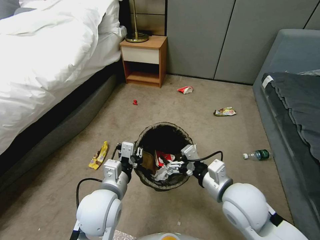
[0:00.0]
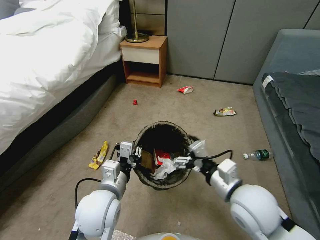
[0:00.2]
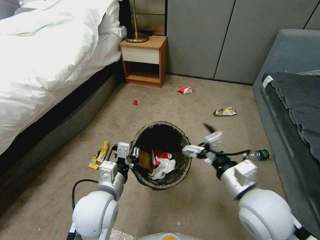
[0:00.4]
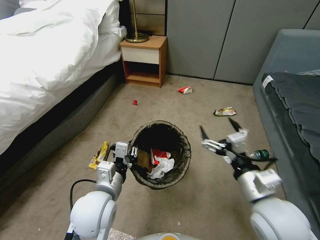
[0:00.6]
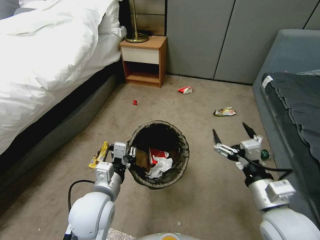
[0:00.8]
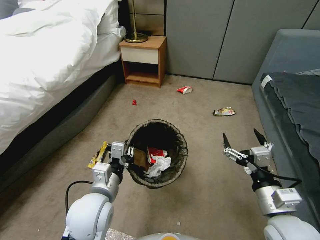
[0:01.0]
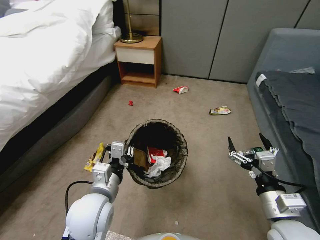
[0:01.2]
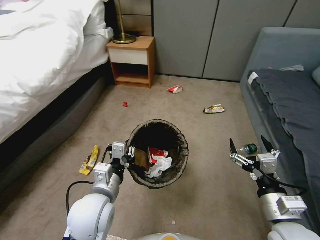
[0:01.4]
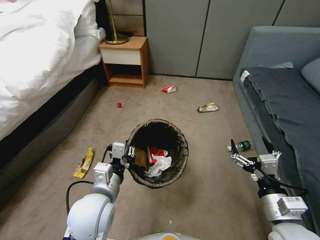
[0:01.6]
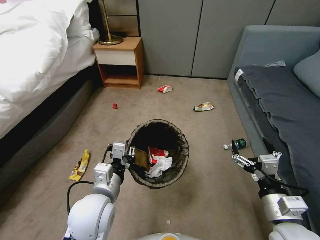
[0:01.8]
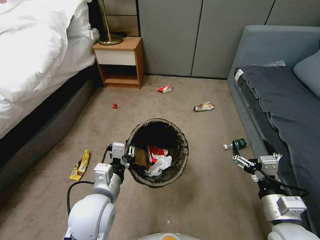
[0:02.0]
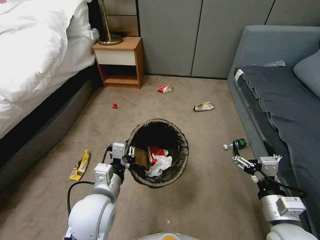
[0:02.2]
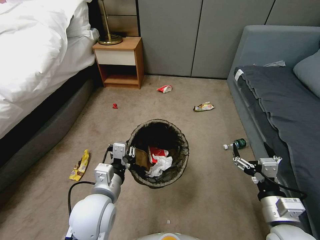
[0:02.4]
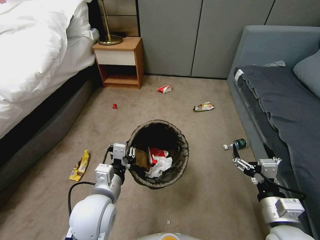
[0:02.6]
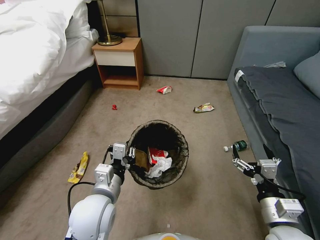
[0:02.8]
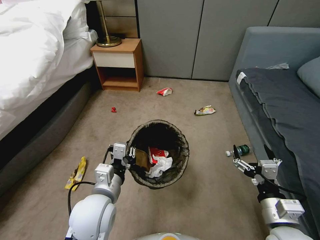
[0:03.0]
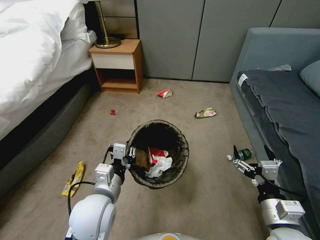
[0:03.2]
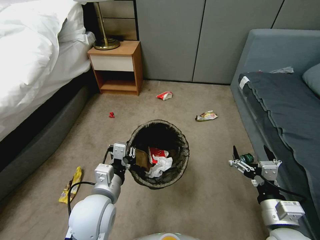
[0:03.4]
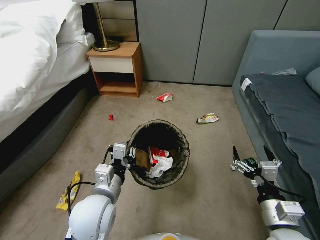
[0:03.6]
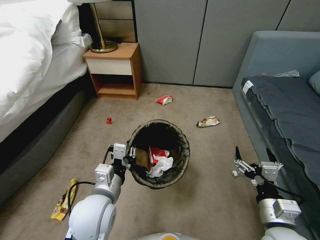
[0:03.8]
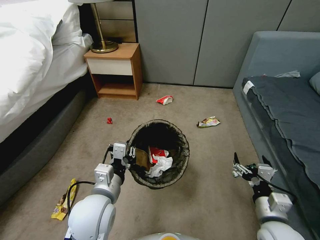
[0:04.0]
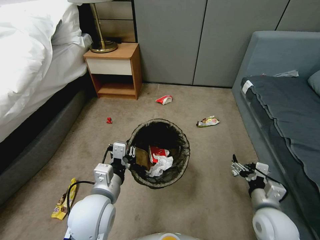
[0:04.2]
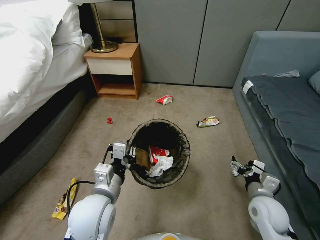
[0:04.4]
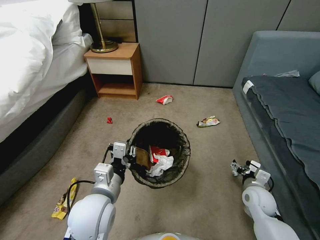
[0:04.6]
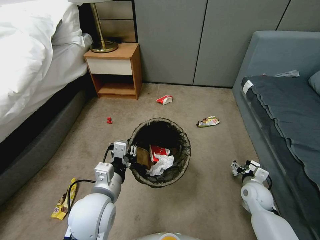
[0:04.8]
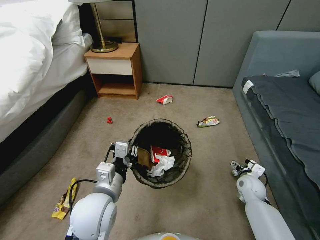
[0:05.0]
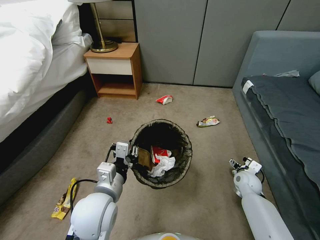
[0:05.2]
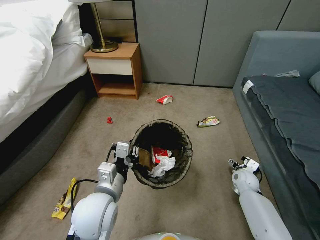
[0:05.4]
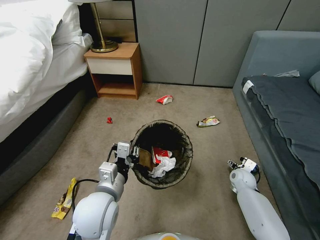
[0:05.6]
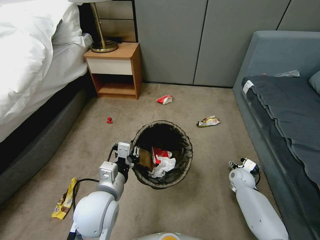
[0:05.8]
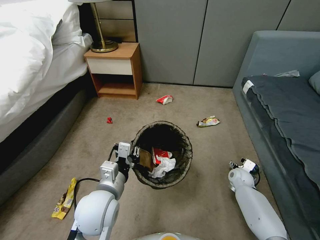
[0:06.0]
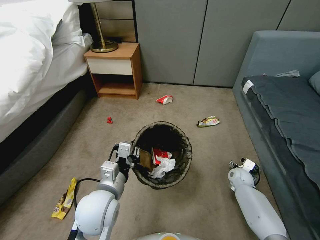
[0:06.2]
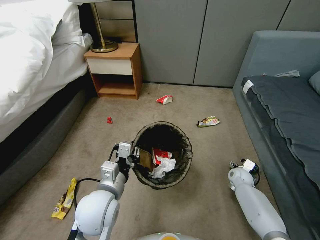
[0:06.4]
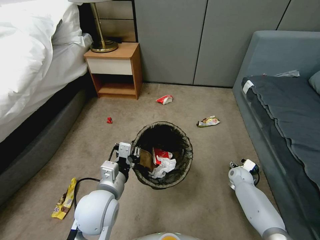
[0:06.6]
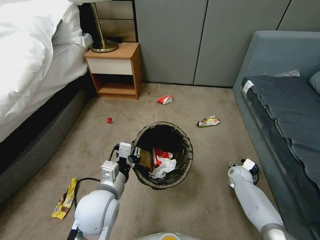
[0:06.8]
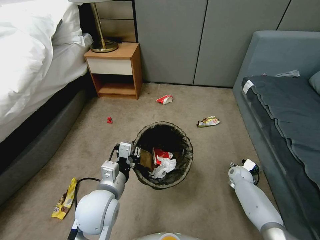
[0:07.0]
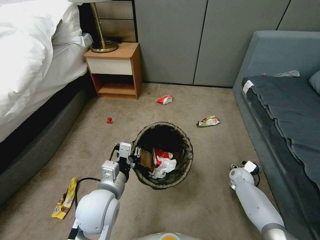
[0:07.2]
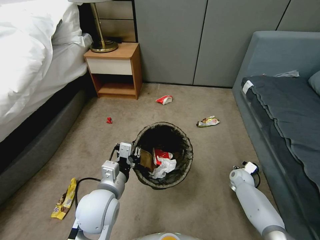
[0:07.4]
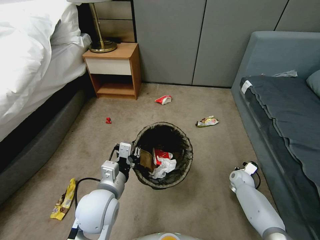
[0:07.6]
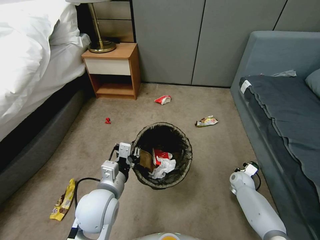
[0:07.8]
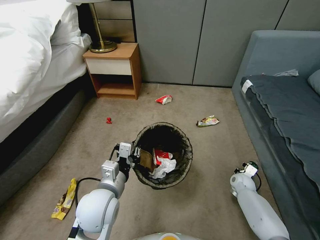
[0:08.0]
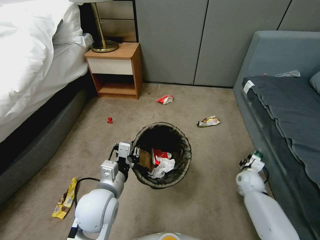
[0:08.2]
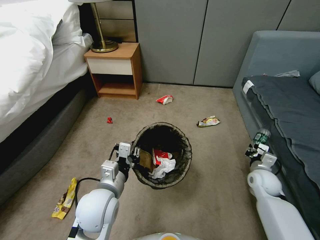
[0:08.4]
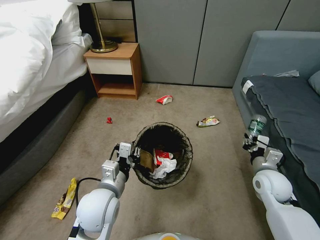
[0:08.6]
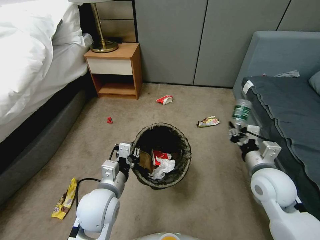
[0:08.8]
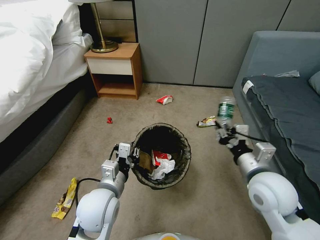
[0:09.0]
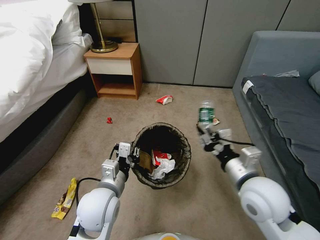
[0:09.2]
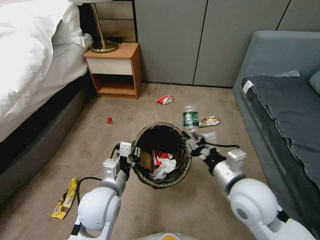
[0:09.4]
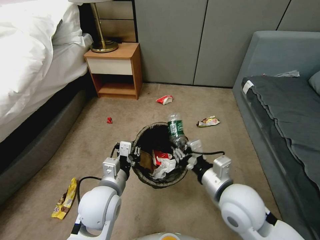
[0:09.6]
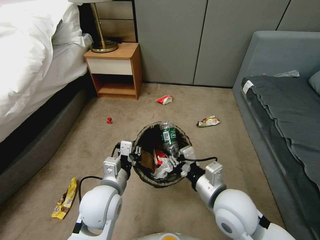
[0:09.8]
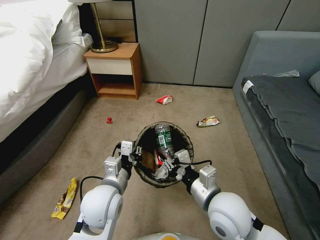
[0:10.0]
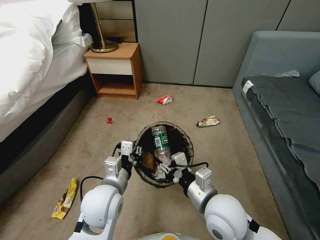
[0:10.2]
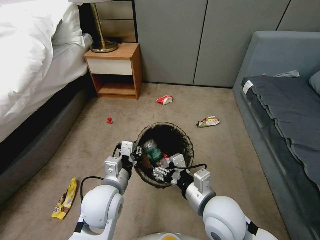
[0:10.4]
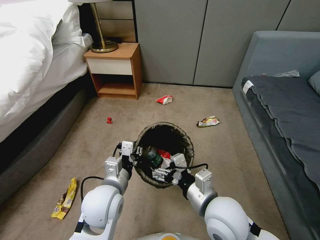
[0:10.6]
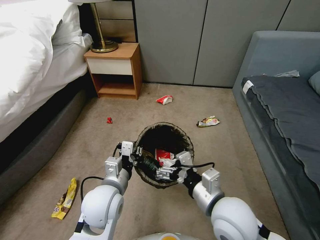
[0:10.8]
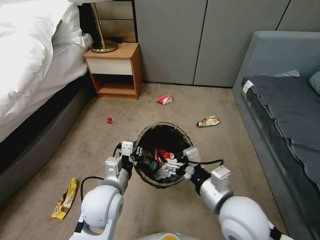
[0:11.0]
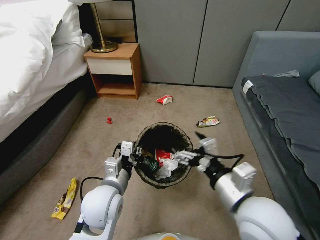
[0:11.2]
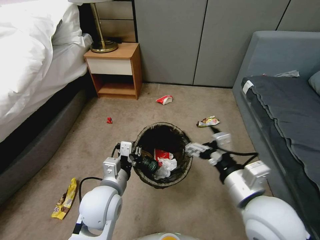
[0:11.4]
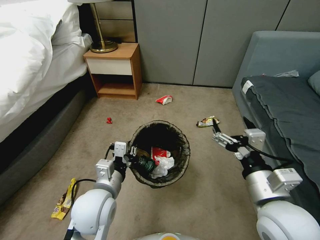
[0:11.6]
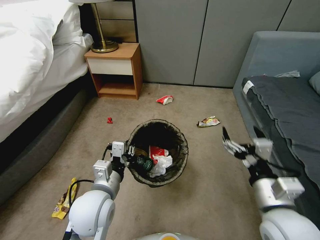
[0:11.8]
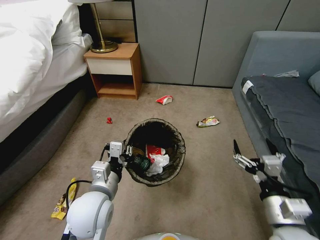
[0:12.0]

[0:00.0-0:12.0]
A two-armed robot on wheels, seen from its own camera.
Task of the whole recording: Pick up the trash bin, then pick up the garbage from the floor and place it into the trash bin.
0:00.0 to 0:01.6: The right gripper heads to the right and backward, covering some 15 cm.
0:01.6 to 0:03.0: The grippers move only a little.
0:03.0 to 0:04.4: The right gripper shifts some 10 cm forward and downward.
0:04.4 to 0:06.0: The right gripper is displaced forward and downward by some 20 cm.
0:06.0 to 0:07.6: The right gripper closes.
0:07.6 to 0:09.0: The right gripper goes roughly 35 cm upward and backward.
0:09.0 to 0:10.4: The right gripper heads to the left, covering approximately 10 cm, and opens up.
0:10.4 to 0:12.0: The right gripper goes about 15 cm to the right.

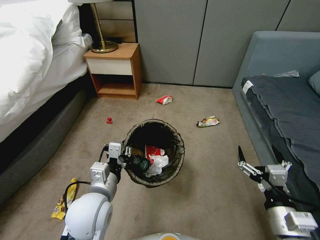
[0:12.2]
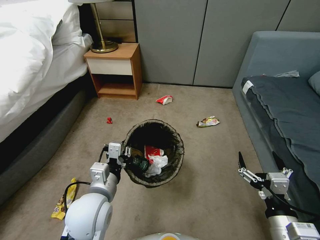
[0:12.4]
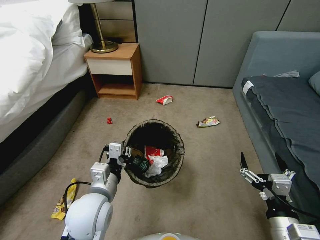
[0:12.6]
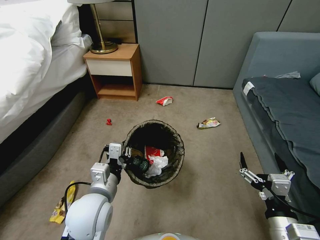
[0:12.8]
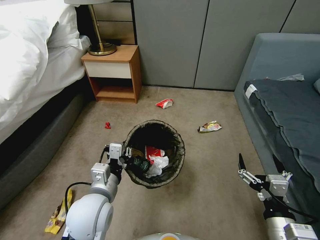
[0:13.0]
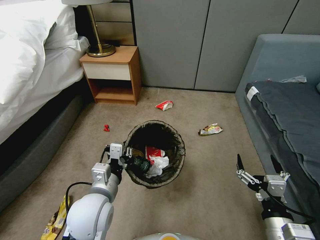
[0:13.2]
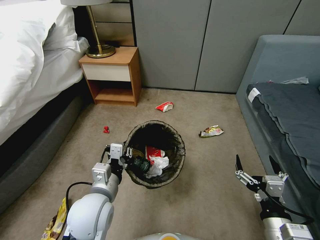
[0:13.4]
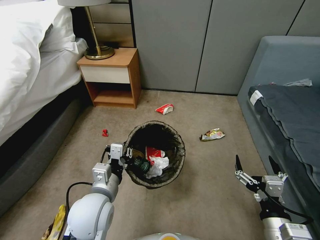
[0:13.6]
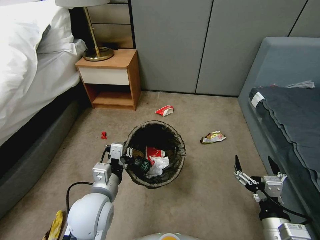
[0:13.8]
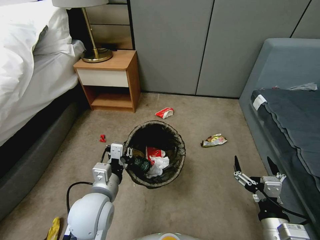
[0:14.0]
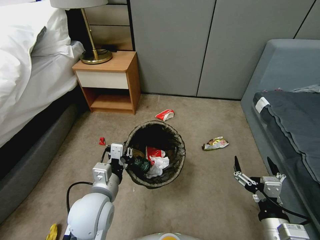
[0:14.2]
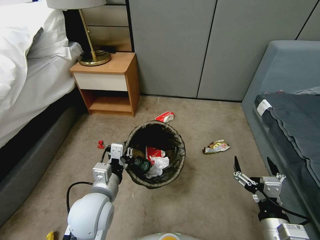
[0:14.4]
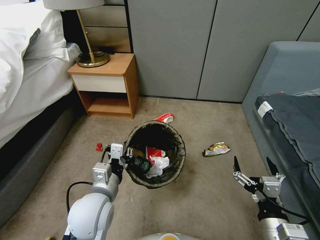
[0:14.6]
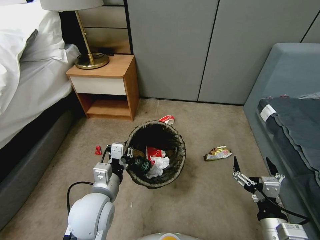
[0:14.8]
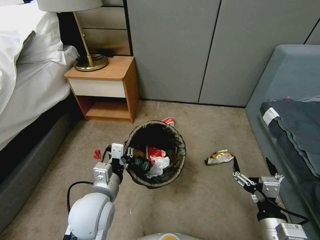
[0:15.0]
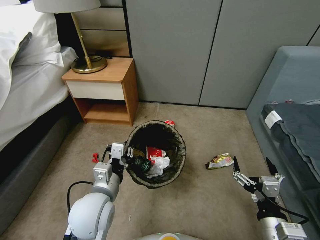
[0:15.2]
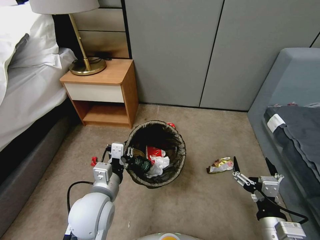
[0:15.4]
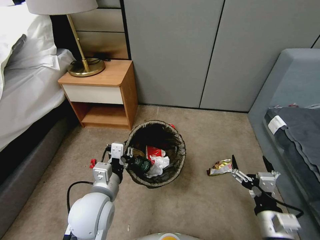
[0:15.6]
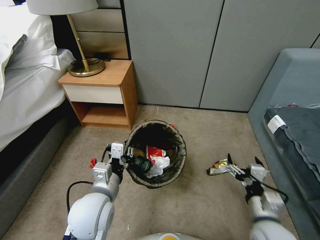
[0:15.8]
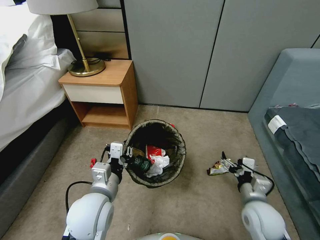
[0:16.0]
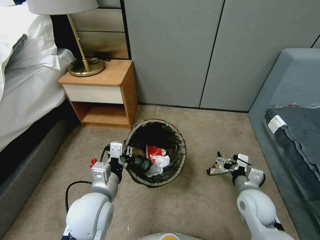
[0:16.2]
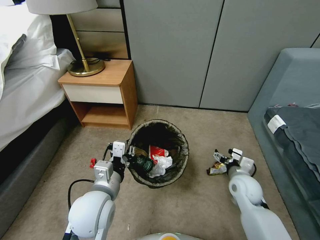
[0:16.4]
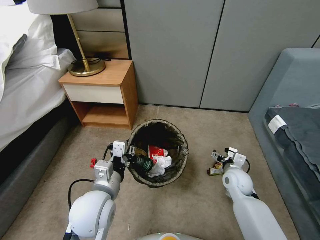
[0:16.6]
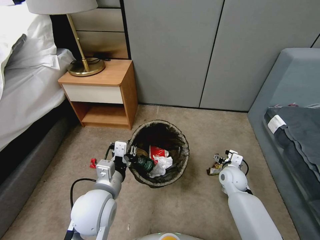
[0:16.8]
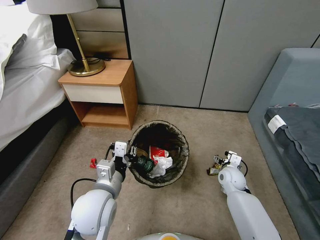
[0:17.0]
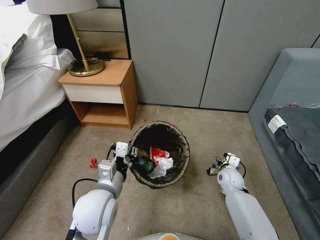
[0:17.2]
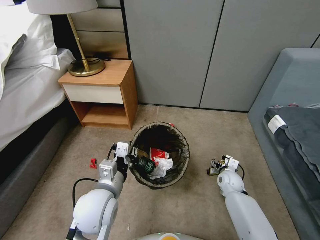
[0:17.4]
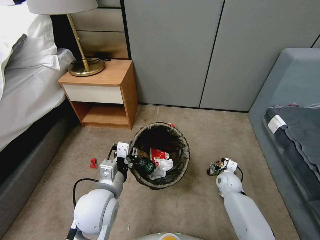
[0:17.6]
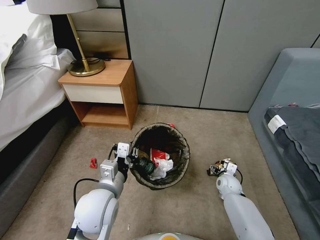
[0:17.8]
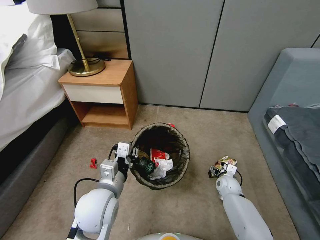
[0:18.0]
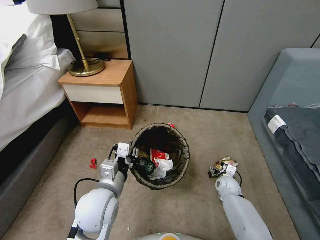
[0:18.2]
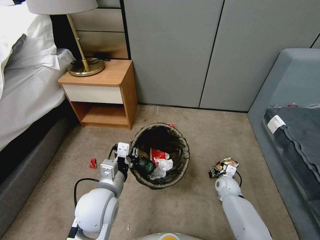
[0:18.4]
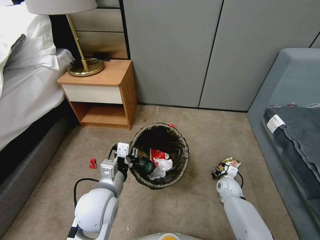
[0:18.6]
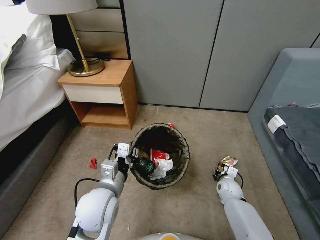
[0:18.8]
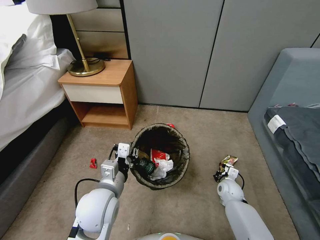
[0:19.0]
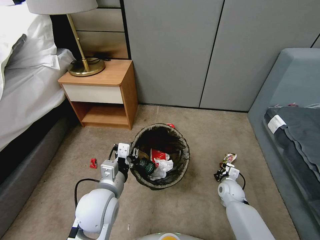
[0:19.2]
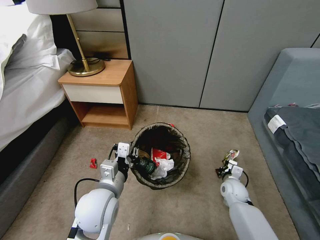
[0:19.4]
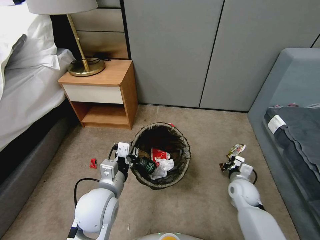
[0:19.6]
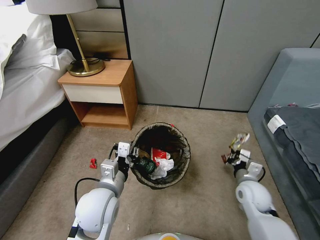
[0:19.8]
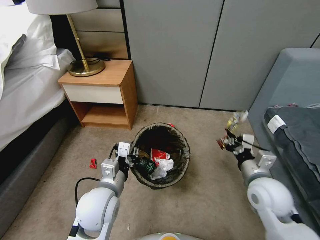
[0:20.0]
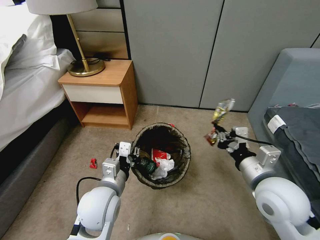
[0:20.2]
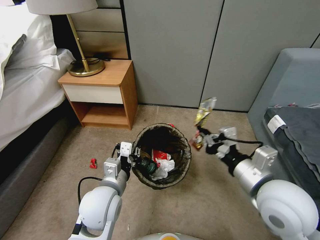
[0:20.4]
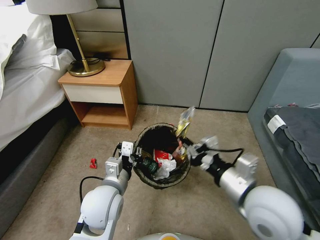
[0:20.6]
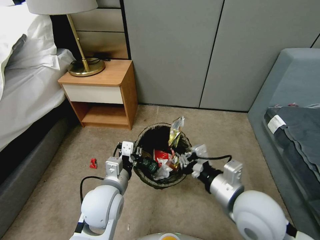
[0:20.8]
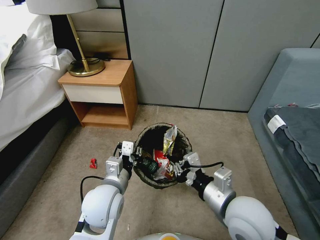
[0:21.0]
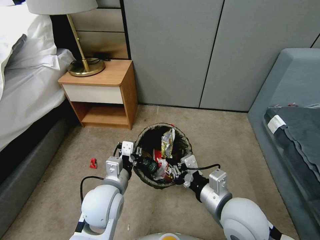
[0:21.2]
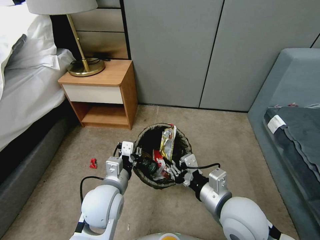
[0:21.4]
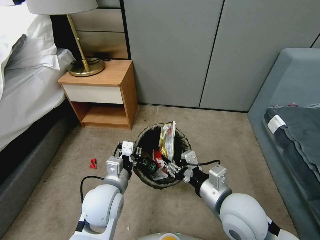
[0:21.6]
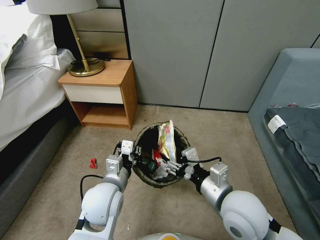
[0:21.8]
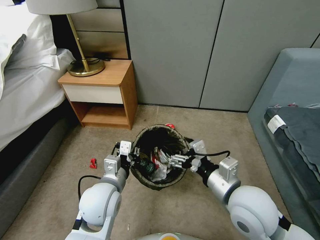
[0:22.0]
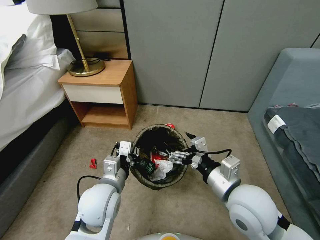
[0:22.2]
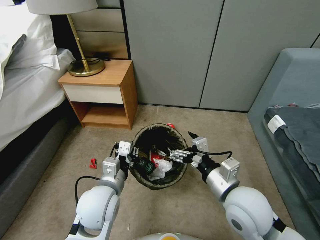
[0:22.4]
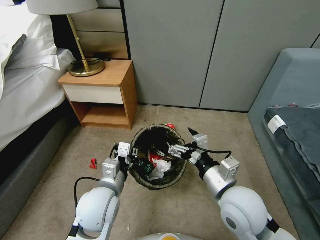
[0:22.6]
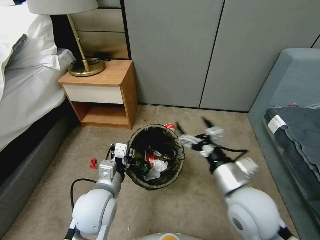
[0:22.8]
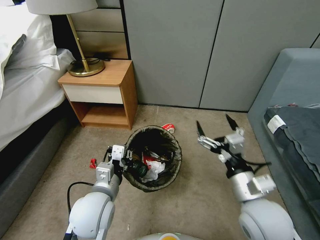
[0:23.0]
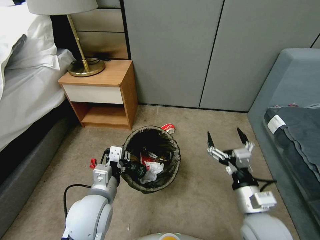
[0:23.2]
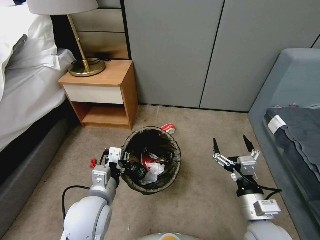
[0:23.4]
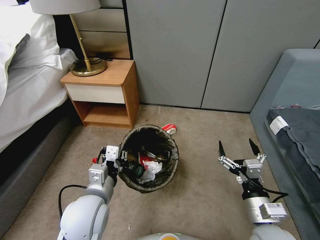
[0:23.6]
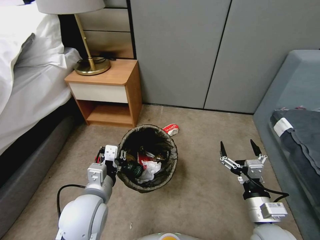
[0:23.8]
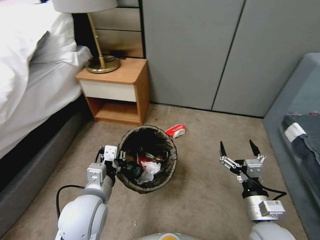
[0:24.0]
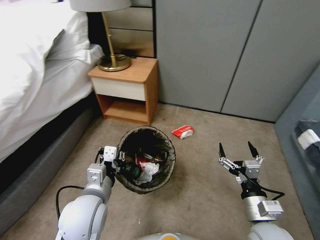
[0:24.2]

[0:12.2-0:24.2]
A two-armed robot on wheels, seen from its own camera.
Task of the whole recording: Pick up the trash bin, then pick up the garbage from the floor and place it into the trash bin.
0:15.2 to 0:16.6: The right gripper heads forward and downward, covering roughly 25 cm.
0:16.6 to 0:18.2: The right gripper moves downward, about 10 cm.
0:18.2 to 0:19.8: The right gripper moves upward and backward, some 20 cm, and closes up.
0:19.8 to 0:21.2: The right gripper moves to the left, upward and backward, approximately 20 cm.
0:21.2 to 0:22.6: The right gripper opens up.
0:22.6 to 0:24.2: The right gripper moves downward, to the right and backward, about 15 cm.
